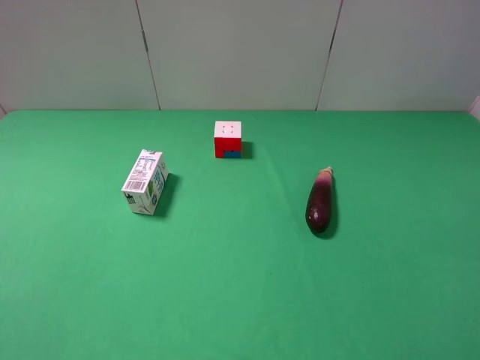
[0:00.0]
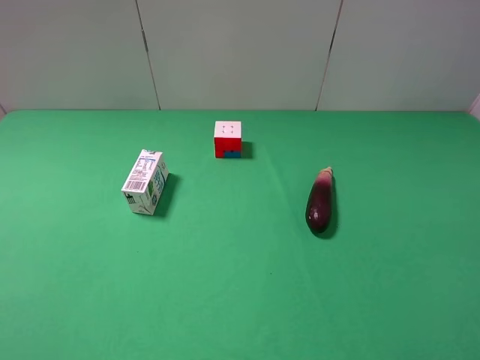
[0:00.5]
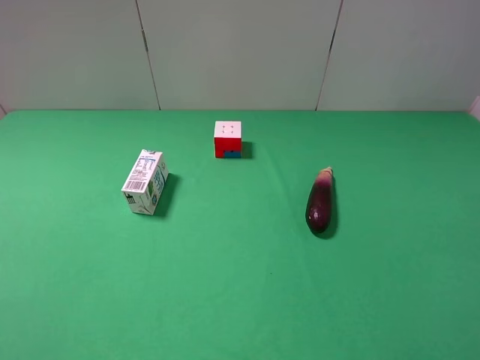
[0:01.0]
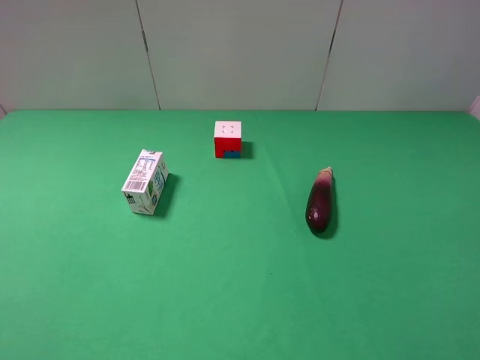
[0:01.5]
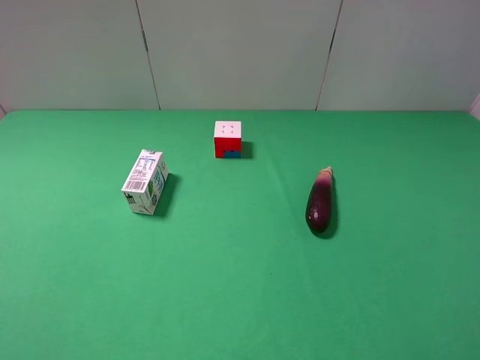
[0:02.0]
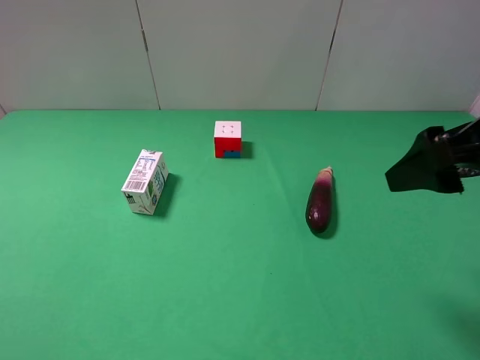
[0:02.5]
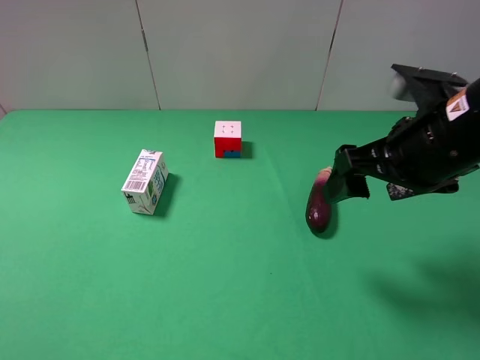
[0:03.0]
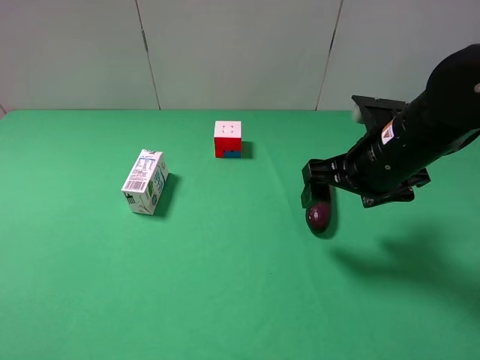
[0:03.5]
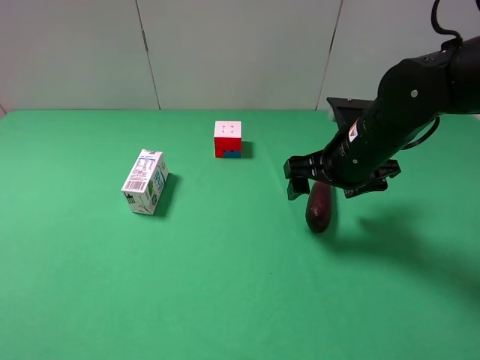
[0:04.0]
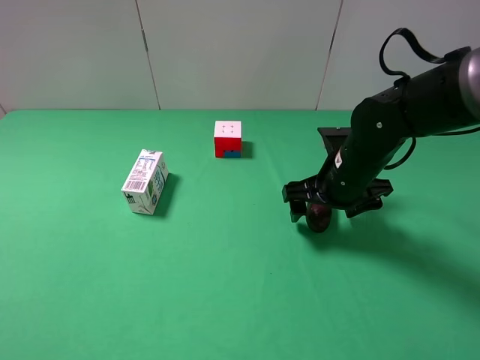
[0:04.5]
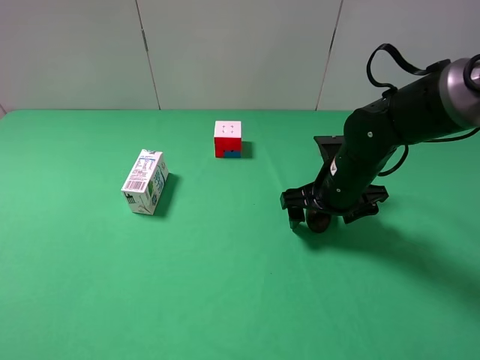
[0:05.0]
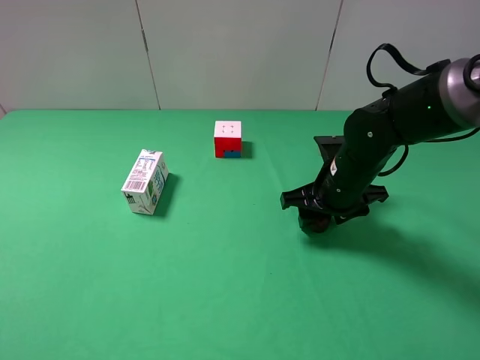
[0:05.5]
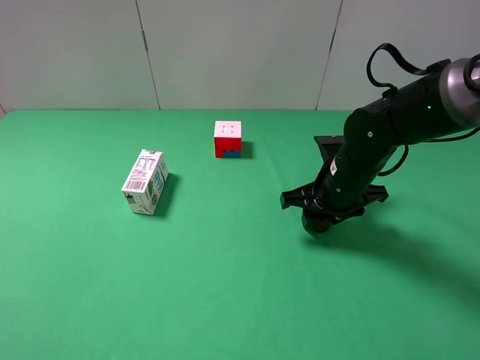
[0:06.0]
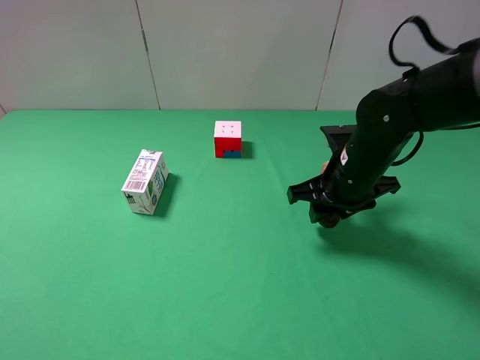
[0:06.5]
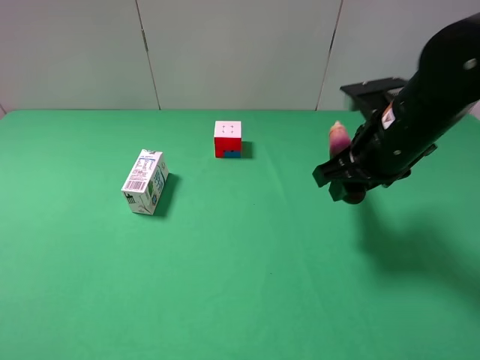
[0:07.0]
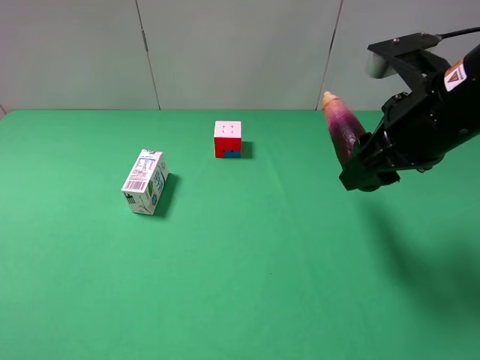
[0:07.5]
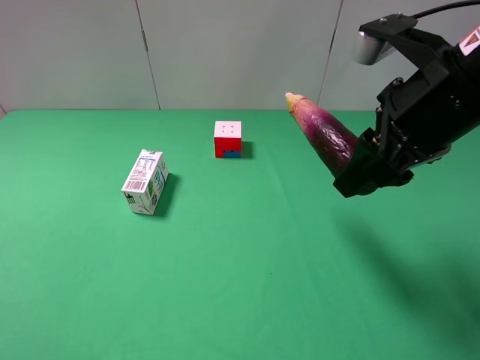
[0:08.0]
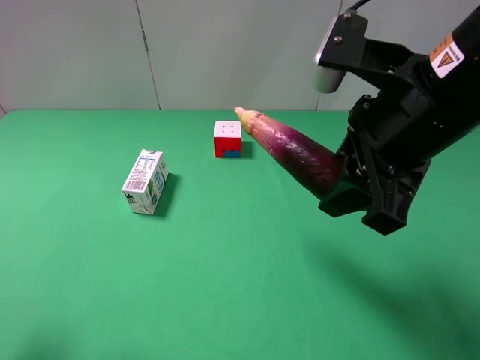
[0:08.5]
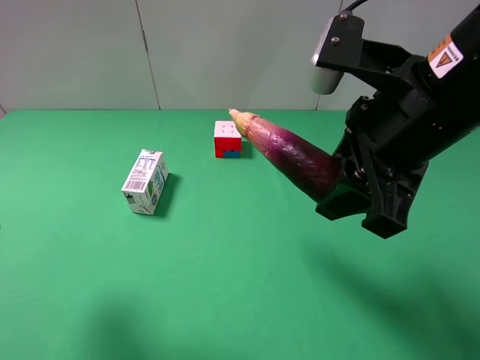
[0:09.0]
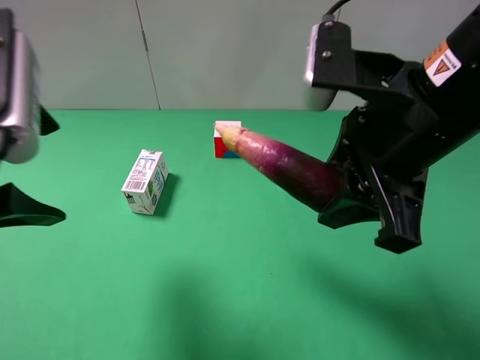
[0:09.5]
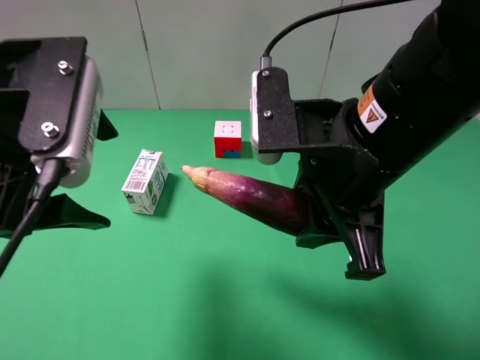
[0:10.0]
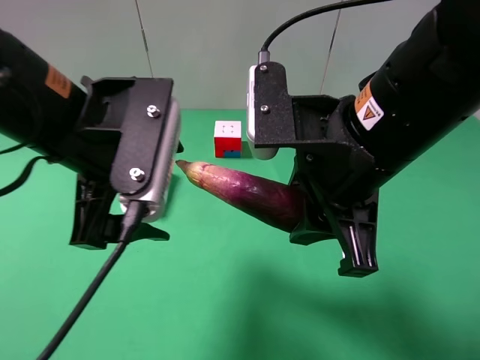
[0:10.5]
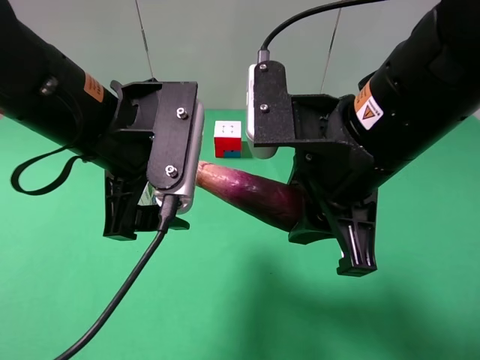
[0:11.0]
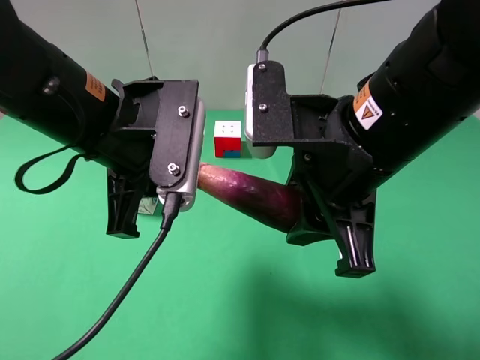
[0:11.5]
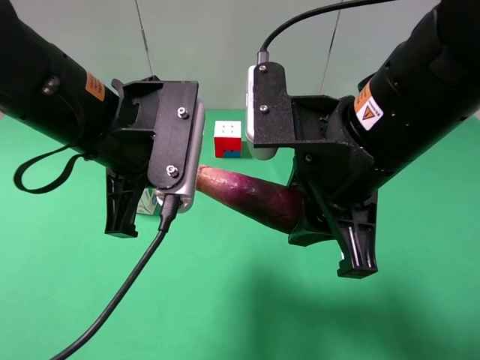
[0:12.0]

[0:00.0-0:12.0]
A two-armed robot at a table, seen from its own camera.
Task of the whole recording: use the right gripper to pick up the item and transfer it from the right gripper to the left gripper.
0:02.0 to 0:04.0: The right gripper heads forward, downward and to the left, covering approximately 25 cm.
0:04.0 to 0:06.0: The right gripper moves downward, approximately 5 cm, and closes its fingers.
0:06.0 to 0:08.0: The right gripper goes some 20 cm upward and backward.
0:08.0 to 0:10.0: The right gripper shifts approximately 5 cm to the left, while the left gripper heads forward and to the right, covering roughly 20 cm.
0:10.0 to 0:12.0: The left gripper is displaced to the right by roughly 5 cm, and closes.

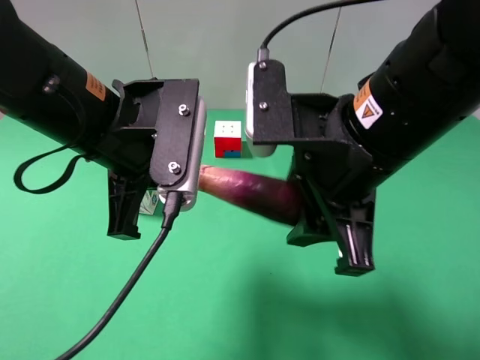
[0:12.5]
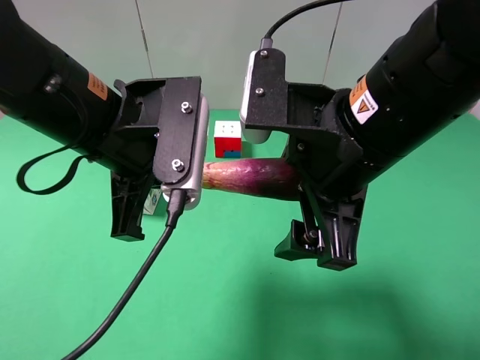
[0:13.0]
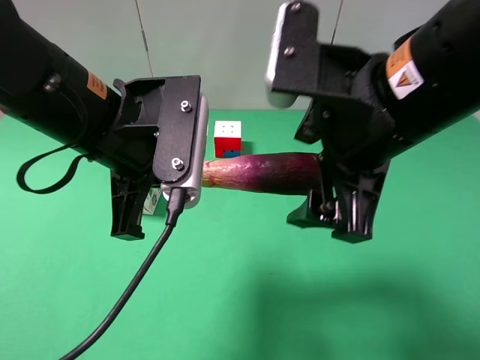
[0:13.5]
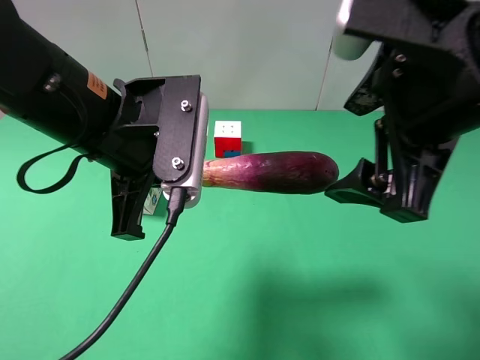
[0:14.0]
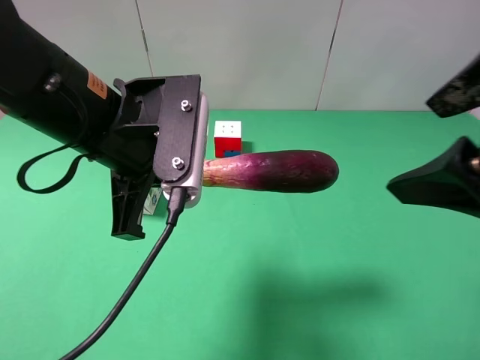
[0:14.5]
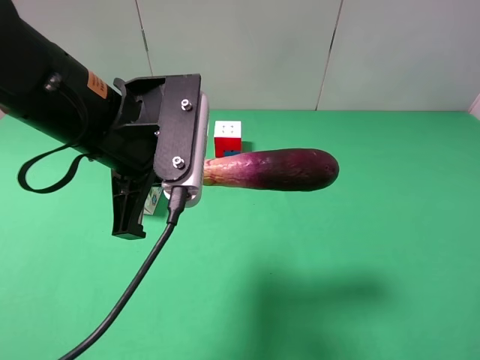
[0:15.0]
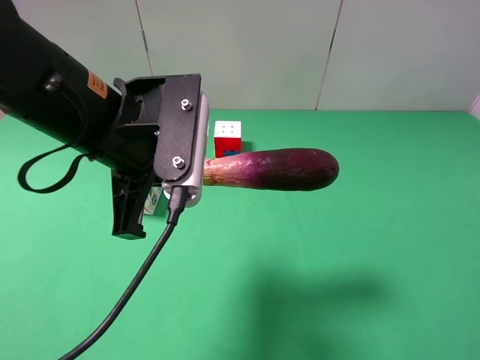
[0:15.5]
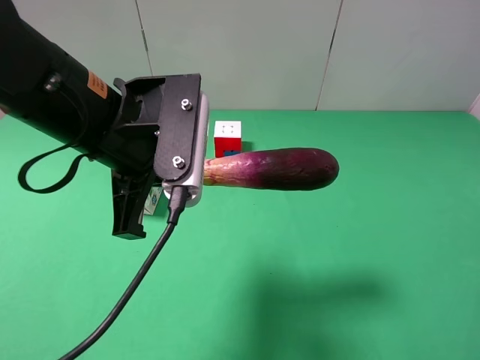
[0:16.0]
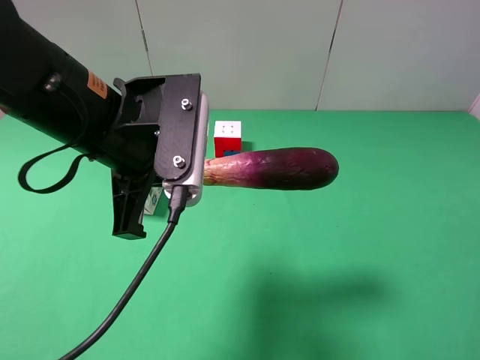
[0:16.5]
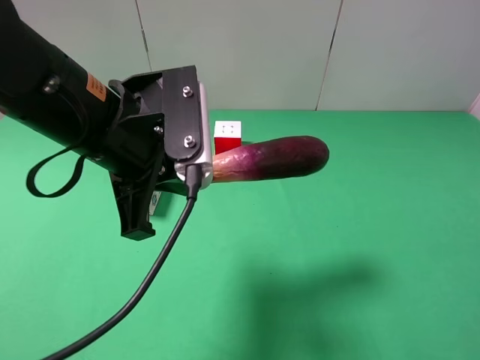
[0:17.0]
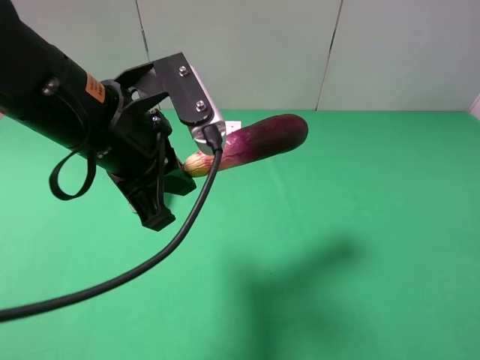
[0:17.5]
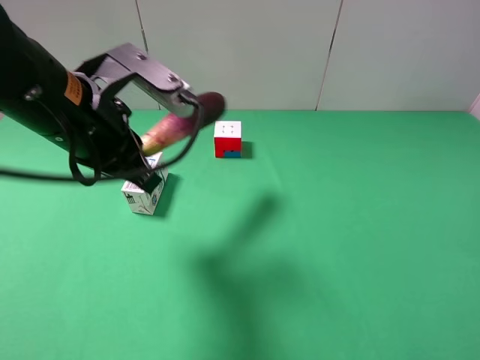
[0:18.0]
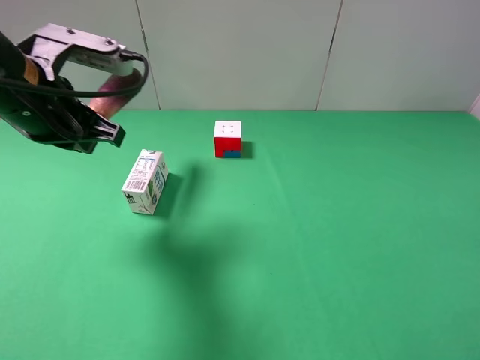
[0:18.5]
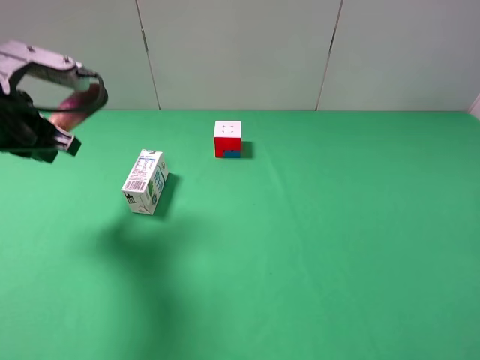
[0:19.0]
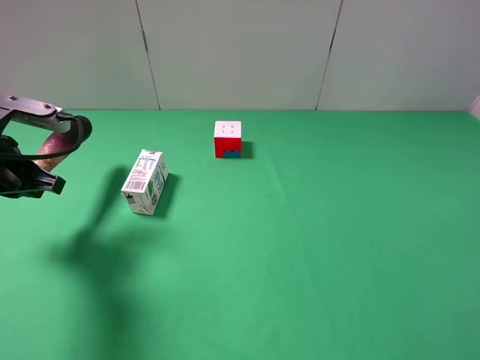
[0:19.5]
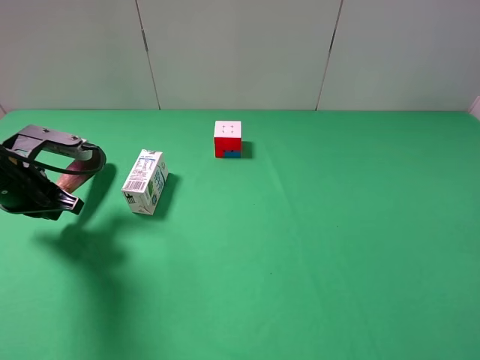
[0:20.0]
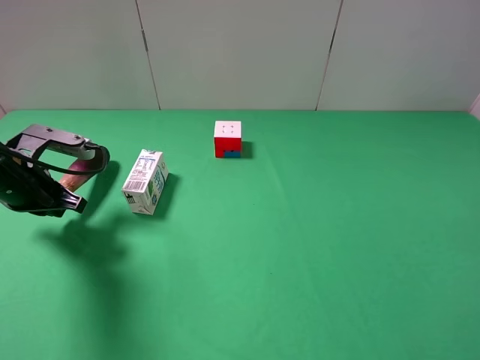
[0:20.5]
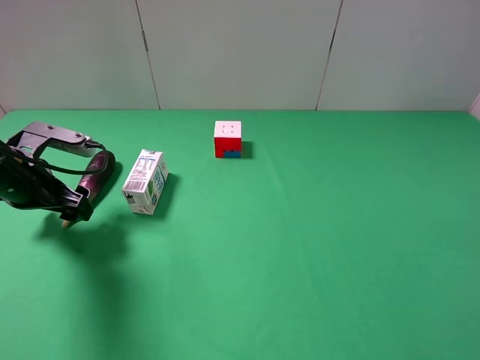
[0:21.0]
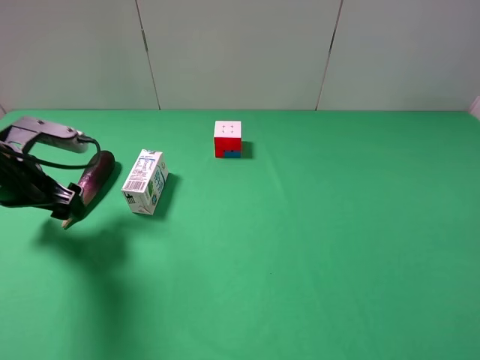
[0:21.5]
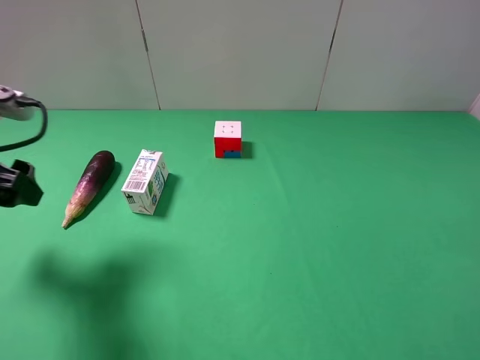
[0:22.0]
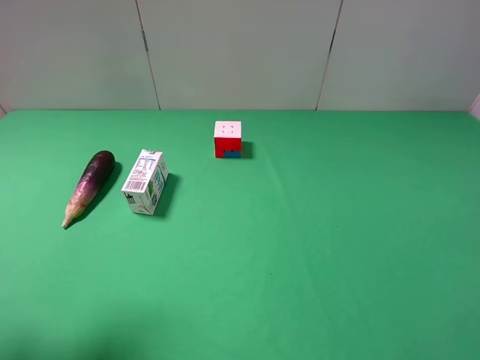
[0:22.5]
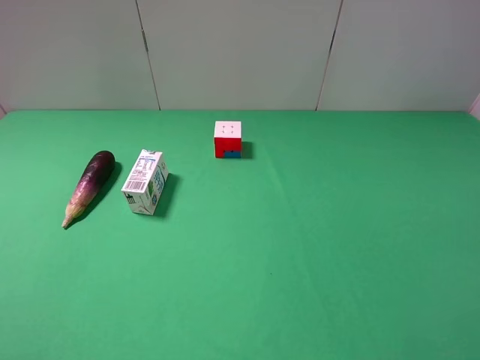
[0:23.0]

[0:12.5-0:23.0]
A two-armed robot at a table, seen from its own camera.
Task of the whole recording: use the right gripper to pick up the item and transfer it from the right gripper to the left gripper.
Step, 0:13.0 to 0:21.0: The left gripper places eggplant on the left side of the table.
0:12.5 to 0:14.5: The right gripper goes about 15 cm to the right, upward and backward, and opens up.
0:14.5 to 0:16.5: The right gripper shifts some 15 cm to the right, downward and backward.
0:16.5 to 0:19.0: The left gripper moves to the left, approximately 15 cm.
0:19.0 to 0:21.0: The left gripper moves downward, about 10 cm, and opens.
0:21.0 to 0:23.0: The left gripper moves backward and upward, some 30 cm.
